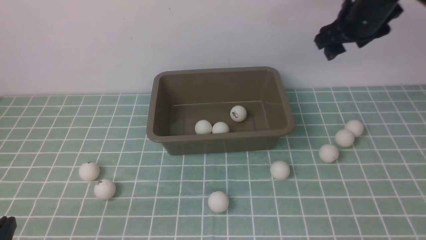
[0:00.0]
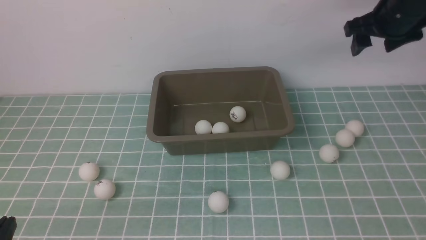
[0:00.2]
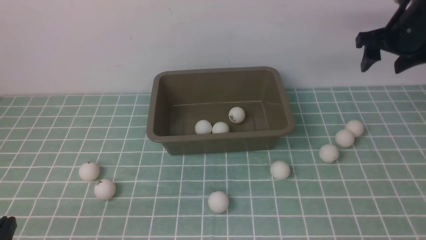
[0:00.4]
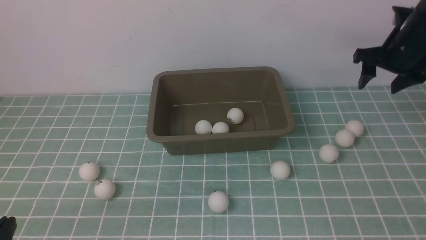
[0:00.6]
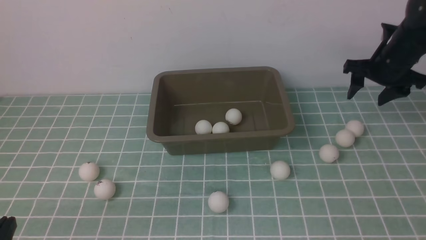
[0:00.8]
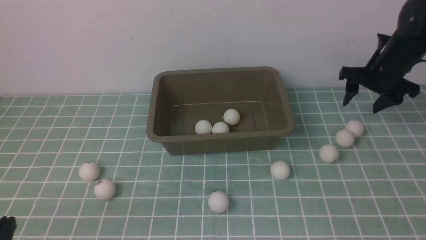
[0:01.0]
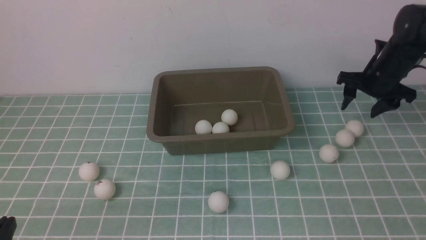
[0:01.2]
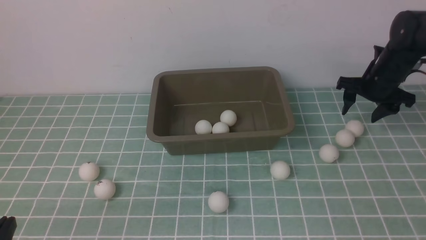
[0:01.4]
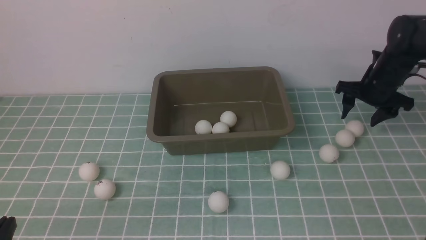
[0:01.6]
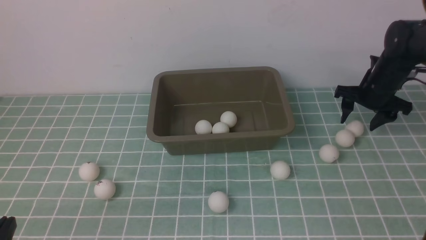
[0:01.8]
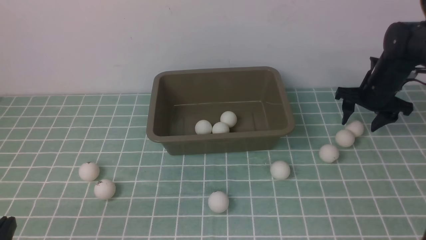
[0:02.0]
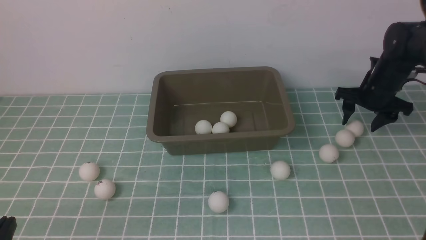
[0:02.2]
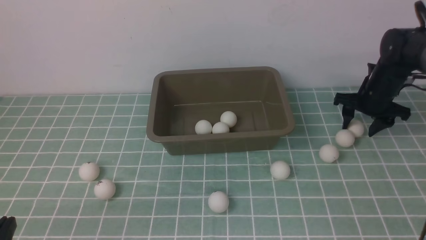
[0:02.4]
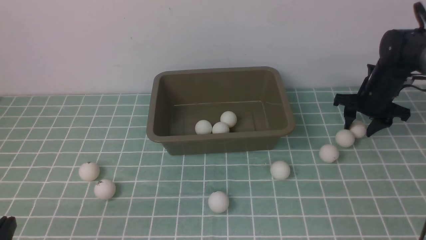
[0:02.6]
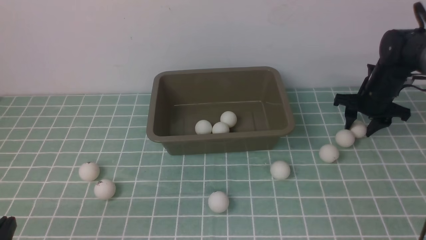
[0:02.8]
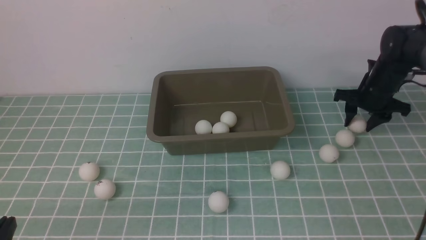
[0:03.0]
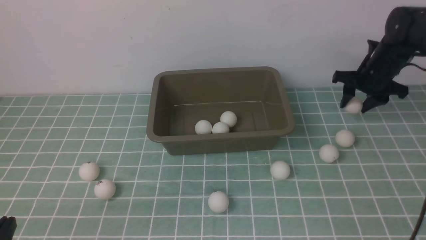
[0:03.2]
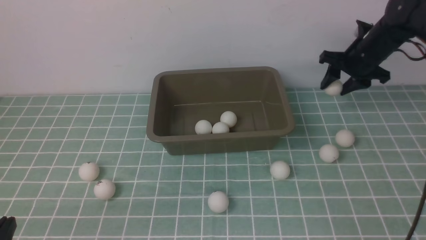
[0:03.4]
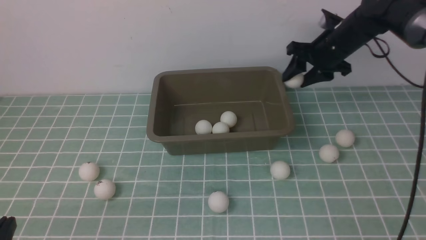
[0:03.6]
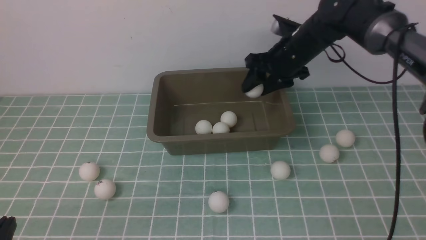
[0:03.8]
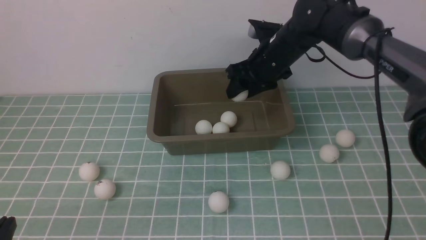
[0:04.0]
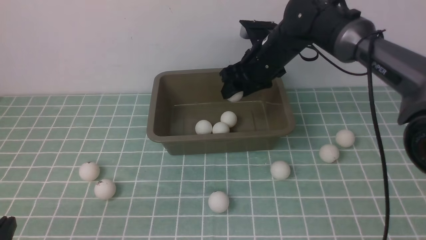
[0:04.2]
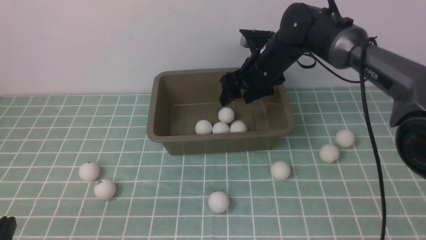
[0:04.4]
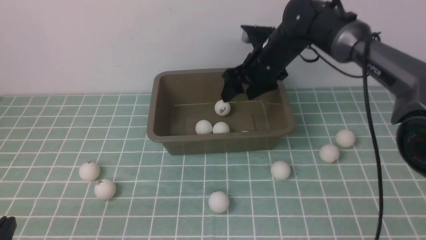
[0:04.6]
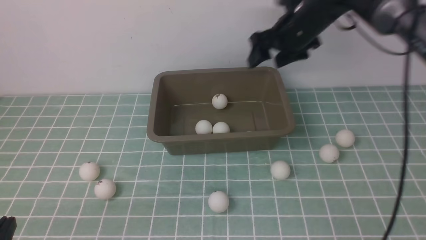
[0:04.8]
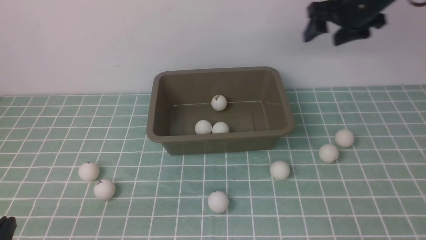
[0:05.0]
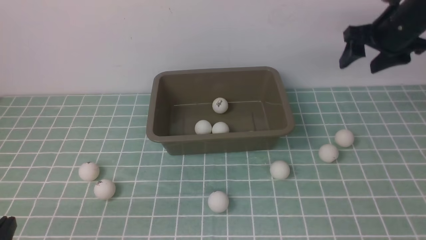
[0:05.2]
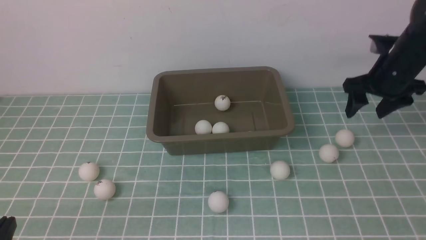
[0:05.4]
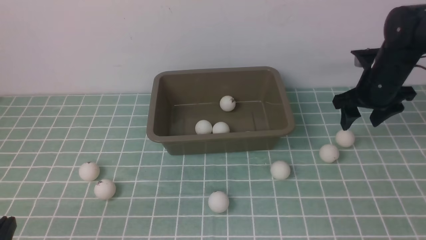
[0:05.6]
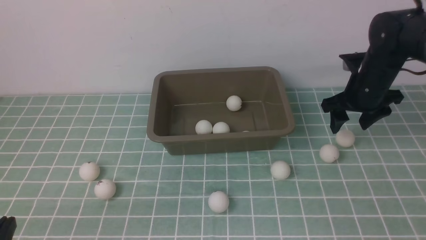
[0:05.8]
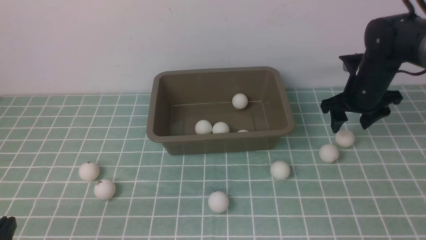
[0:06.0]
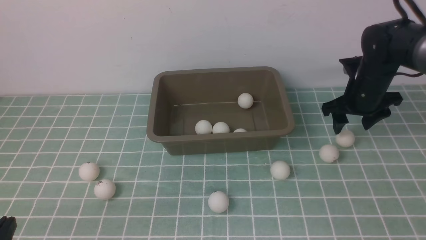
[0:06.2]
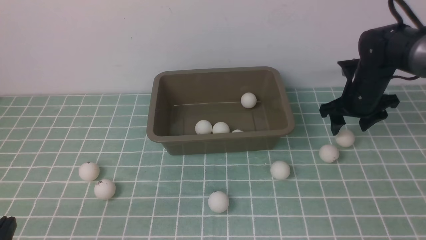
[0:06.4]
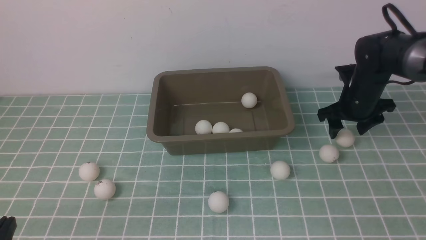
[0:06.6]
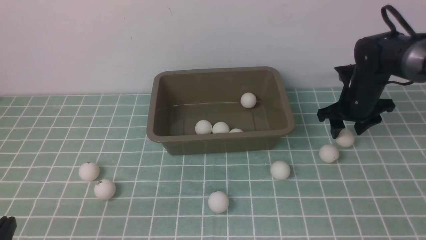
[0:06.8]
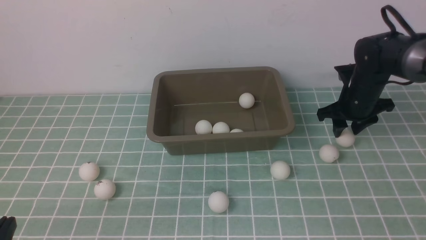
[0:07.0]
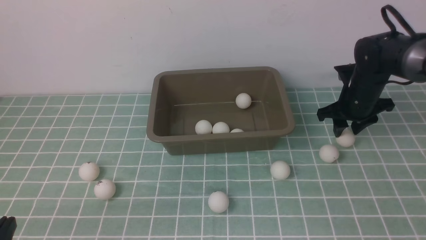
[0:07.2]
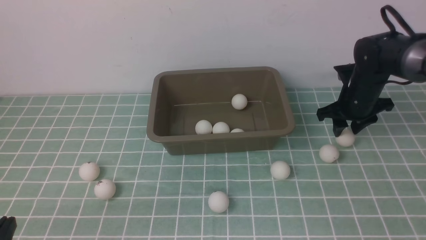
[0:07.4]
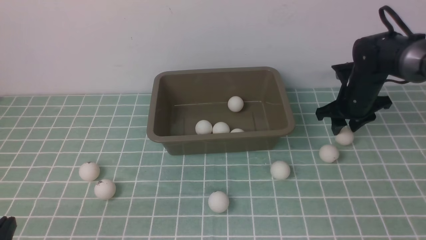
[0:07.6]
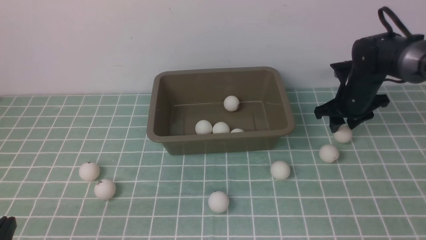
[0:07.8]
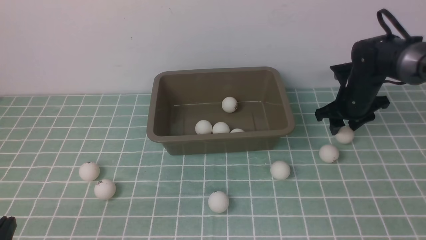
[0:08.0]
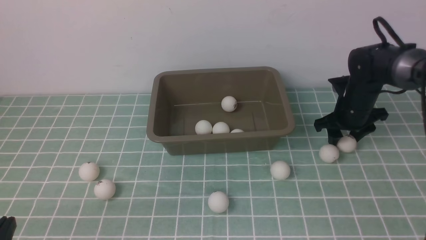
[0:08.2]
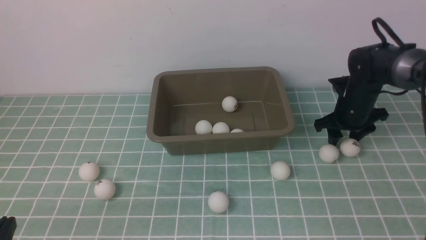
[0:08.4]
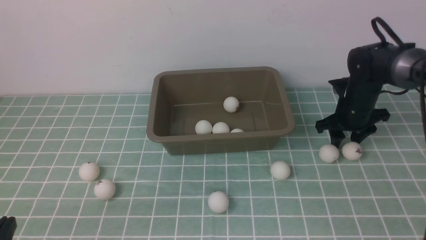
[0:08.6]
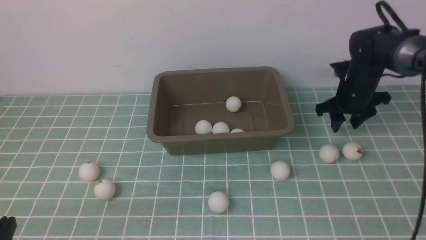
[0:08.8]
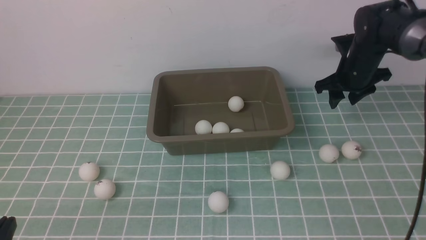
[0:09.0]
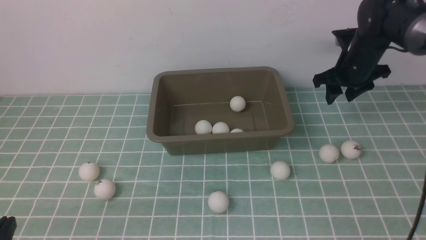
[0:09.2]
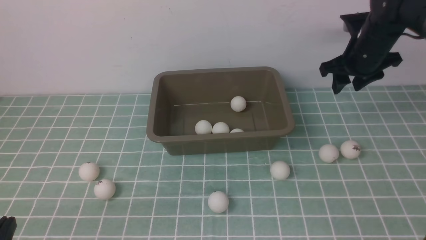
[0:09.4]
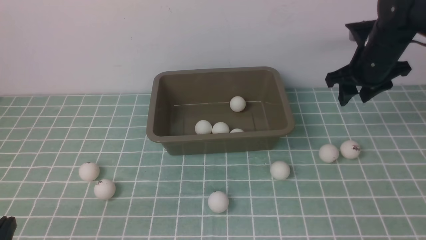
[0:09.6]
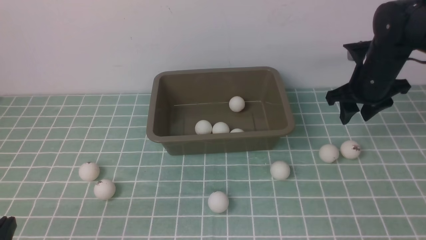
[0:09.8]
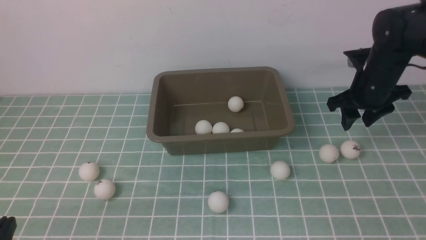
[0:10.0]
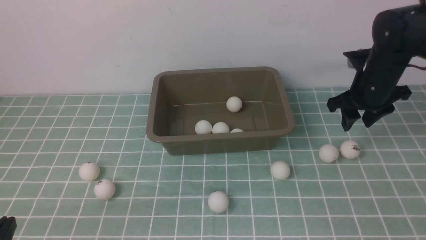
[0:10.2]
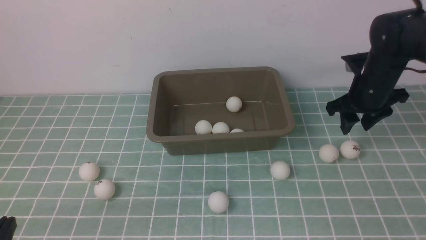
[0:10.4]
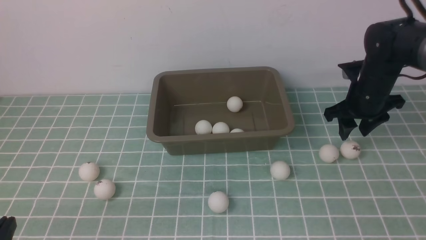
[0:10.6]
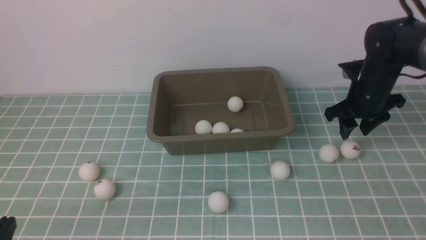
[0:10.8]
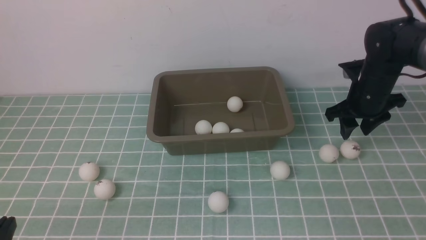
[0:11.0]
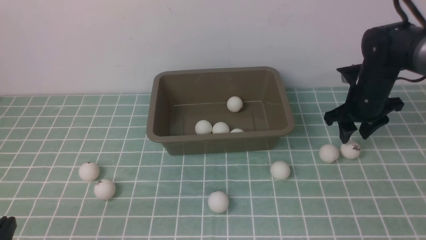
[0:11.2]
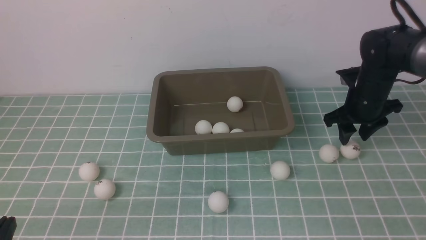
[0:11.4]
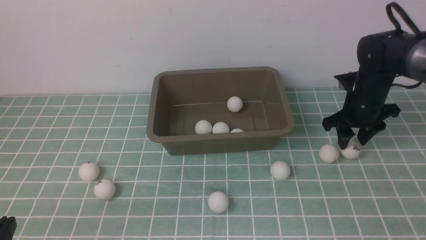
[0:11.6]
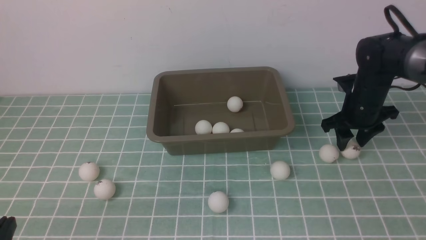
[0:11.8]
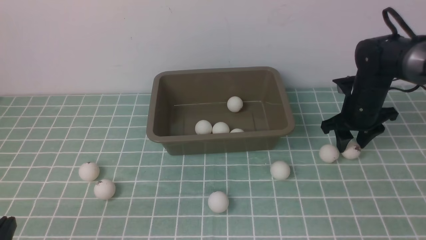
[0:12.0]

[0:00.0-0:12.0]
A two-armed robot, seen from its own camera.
Step, 0:00.0 to 0:03.2: use the right arm to clamp the table tennis ball closest to it.
Step, 0:03.4 to 0:04.4: use the right arm to put the table tennis ball into the box.
0:00.0 to 0:01.6: The right gripper shifts some 15 cm downward.
0:01.6 to 0:03.0: The grippers make only small movements.
0:03.0 to 0:04.4: The right gripper heads to the left, covering roughly 20 cm.
0:04.4 to 0:06.0: The right gripper goes about 15 cm to the right.
0:06.0 to 0:07.6: The right gripper closes its fingers.
0:07.6 to 0:09.0: The right gripper travels upward by about 5 cm.
0:09.0 to 0:10.4: The right gripper changes place by some 5 cm.
0:10.4 to 0:12.0: The grippers stay close to where they were, moving slightly.

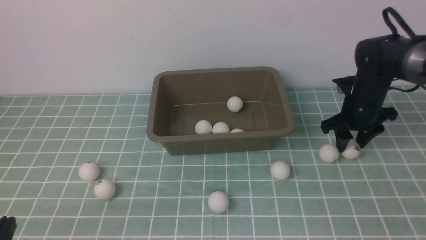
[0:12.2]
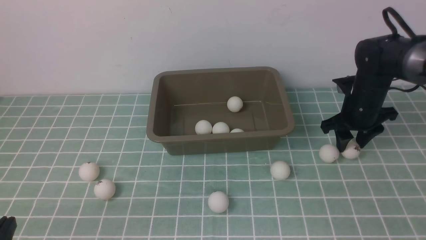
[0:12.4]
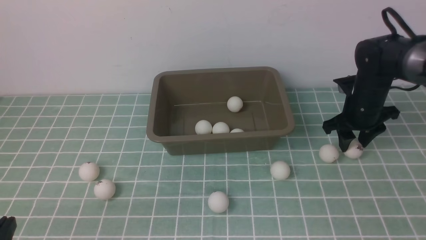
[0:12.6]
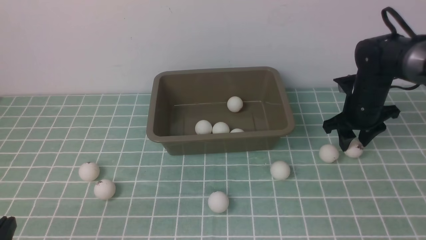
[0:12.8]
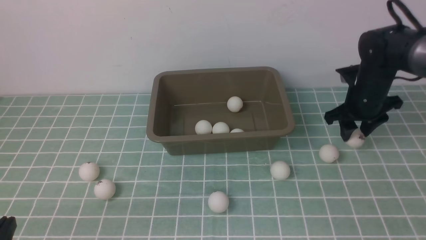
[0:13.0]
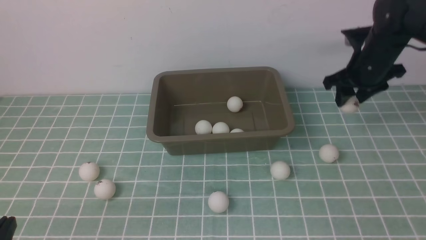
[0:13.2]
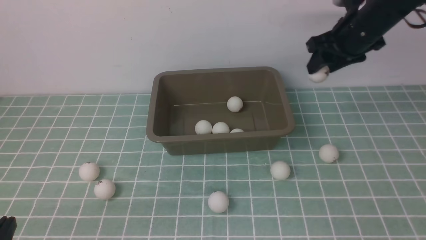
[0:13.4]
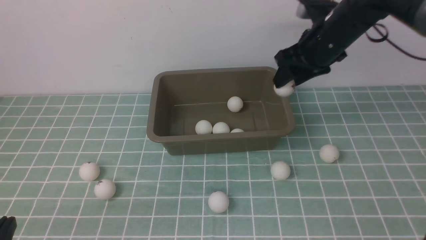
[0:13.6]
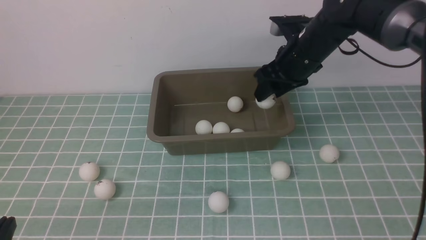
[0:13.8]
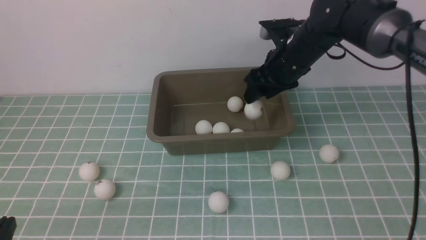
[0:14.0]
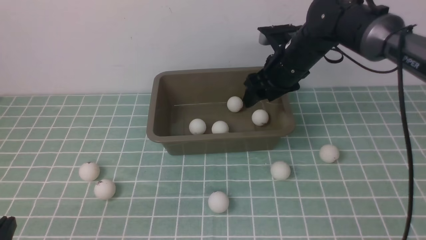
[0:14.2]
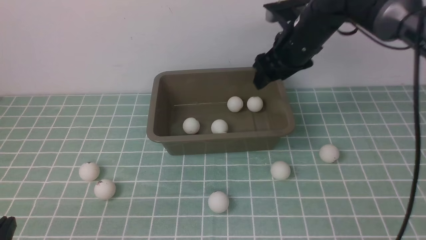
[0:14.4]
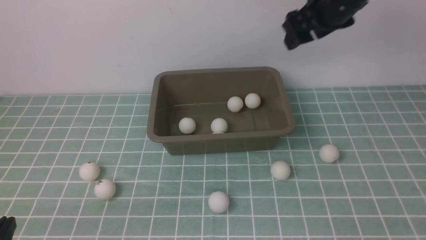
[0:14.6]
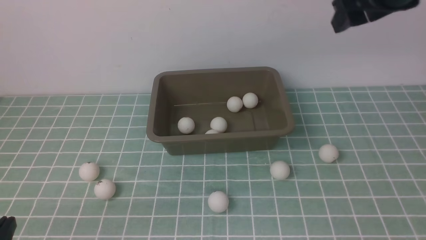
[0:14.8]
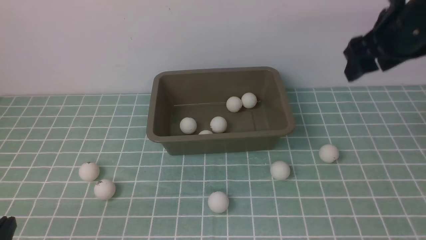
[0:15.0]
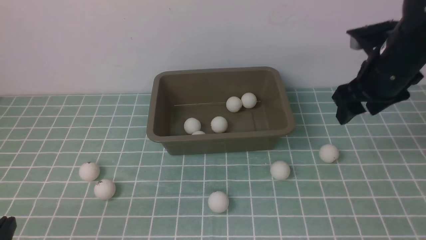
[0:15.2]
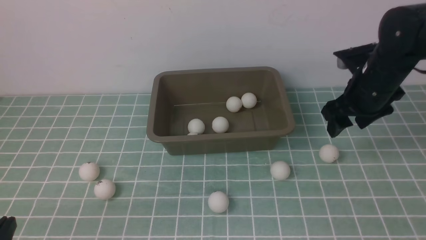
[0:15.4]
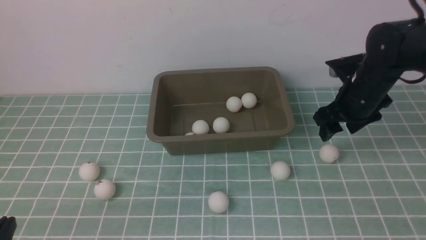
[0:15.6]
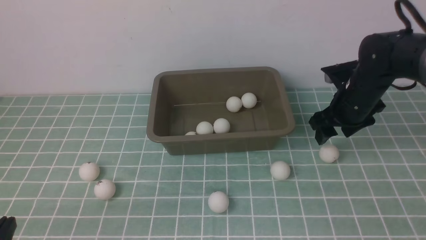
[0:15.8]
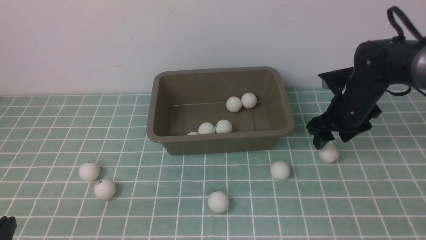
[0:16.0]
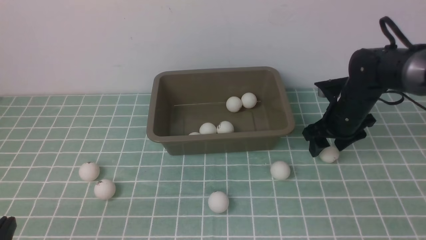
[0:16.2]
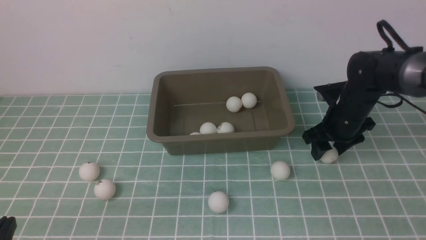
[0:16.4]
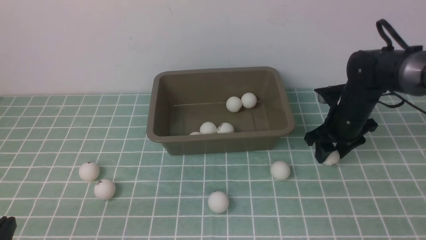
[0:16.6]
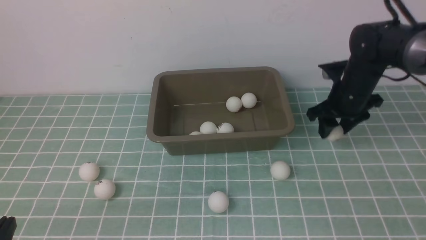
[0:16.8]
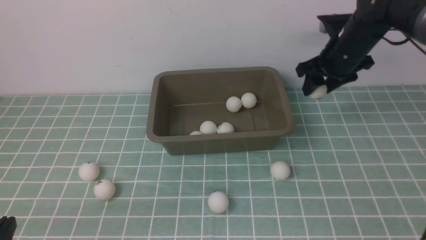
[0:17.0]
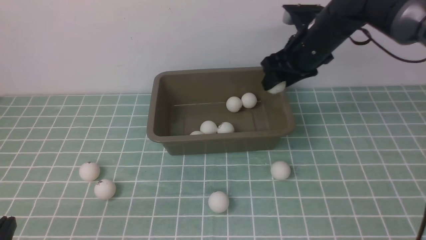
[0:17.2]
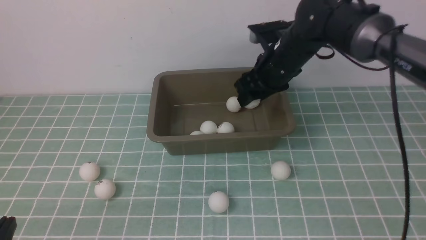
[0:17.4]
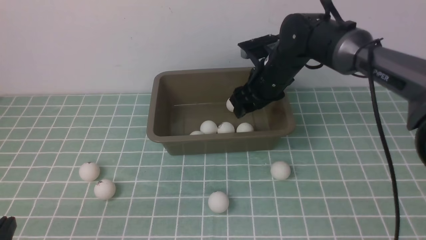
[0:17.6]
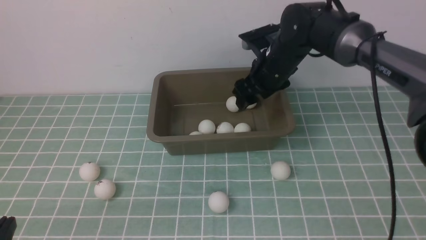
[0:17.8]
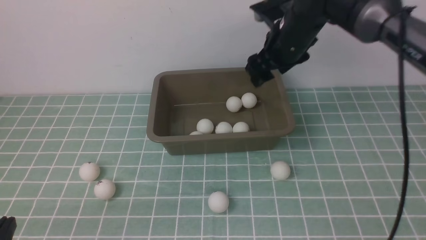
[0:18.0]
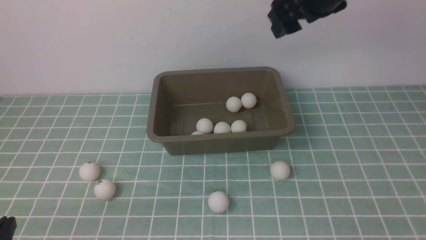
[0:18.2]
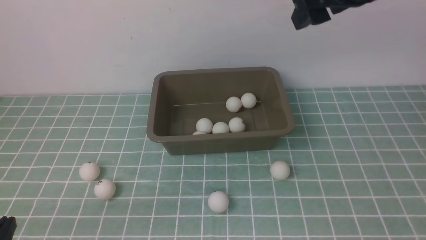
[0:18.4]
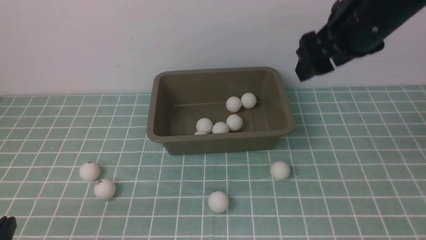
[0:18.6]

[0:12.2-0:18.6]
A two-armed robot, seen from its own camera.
Step, 0:13.4 to 0:14.2: use the right arm to put the table tennis ball into the box.
Step, 0:14.4 to 0:16.6: use the right arm to clamp the table tennis ball closest to it.
Step, 0:16.8 to 0:17.8: use the right arm to put the table tennis ball into the box.
0:12.2 to 0:13.8: The right gripper travels to the left and upward by about 15 cm.
0:13.8 to 0:15.4: The right gripper shifts some 10 cm to the right and backward, and moves some 10 cm upward and comes back.
0:15.4 to 0:17.0: The right gripper travels forward by some 5 cm, and reaches roughly 10 cm downward, then returns.
0:17.0 to 0:18.6: The right gripper moves backward and upward, roughly 15 cm.
